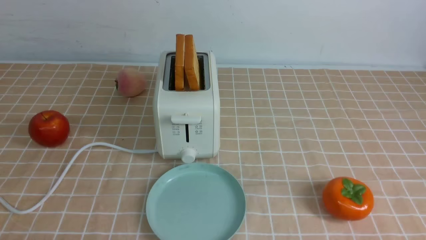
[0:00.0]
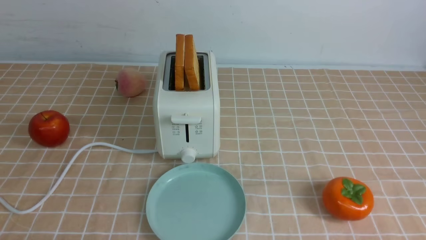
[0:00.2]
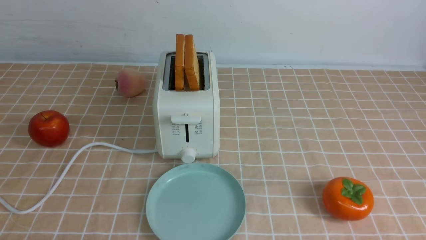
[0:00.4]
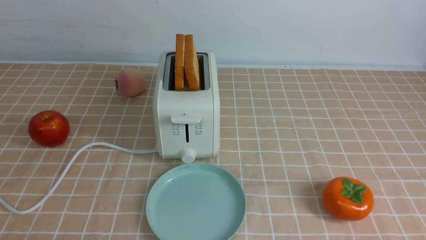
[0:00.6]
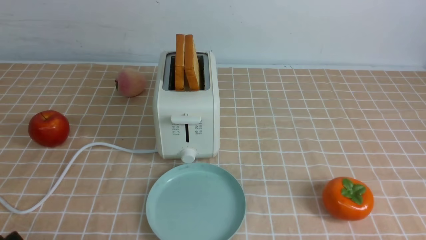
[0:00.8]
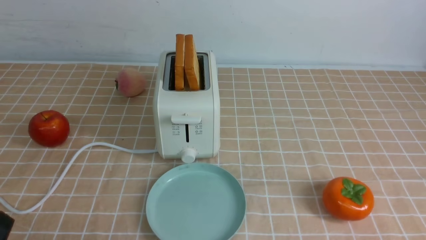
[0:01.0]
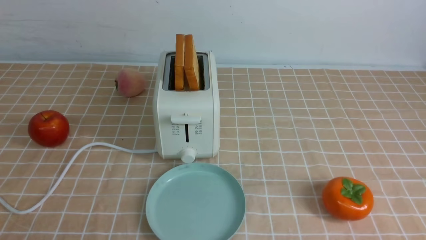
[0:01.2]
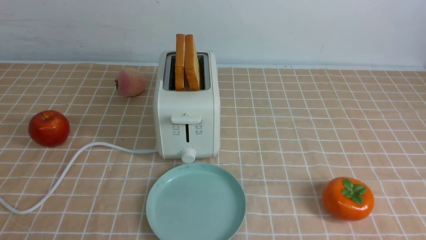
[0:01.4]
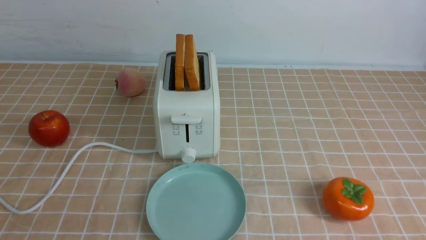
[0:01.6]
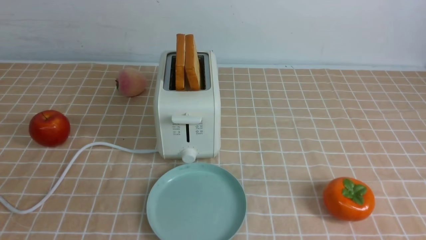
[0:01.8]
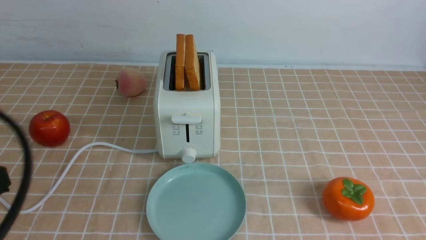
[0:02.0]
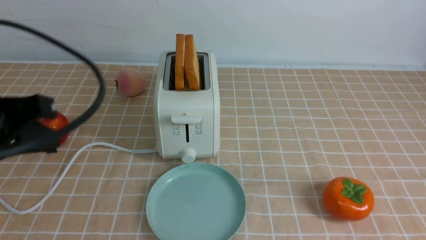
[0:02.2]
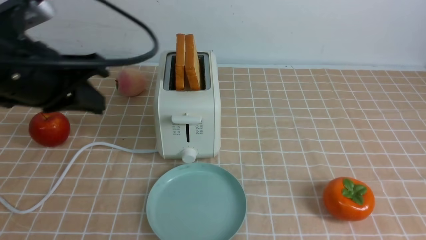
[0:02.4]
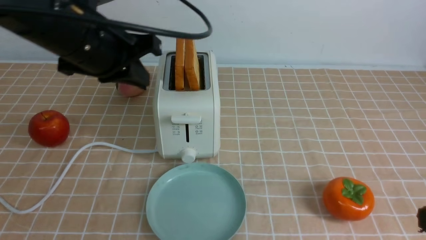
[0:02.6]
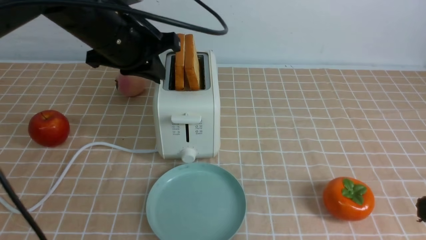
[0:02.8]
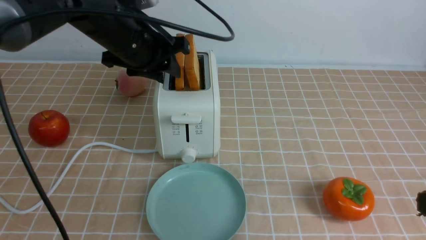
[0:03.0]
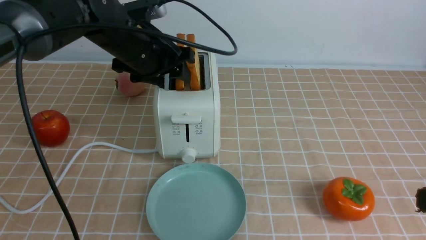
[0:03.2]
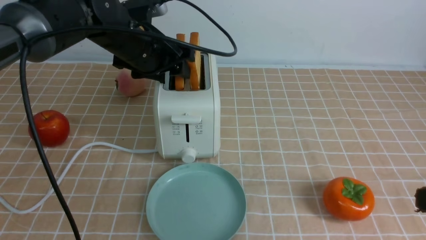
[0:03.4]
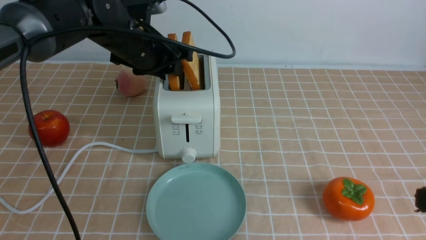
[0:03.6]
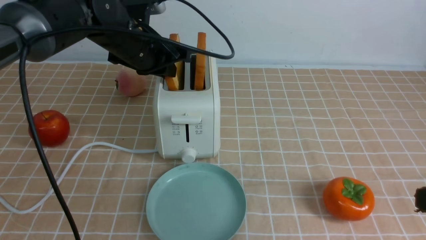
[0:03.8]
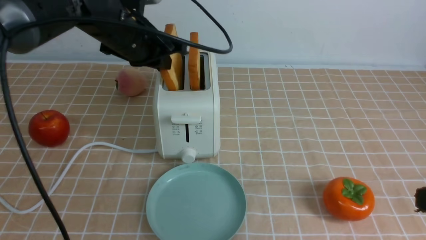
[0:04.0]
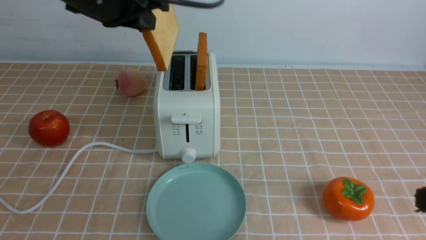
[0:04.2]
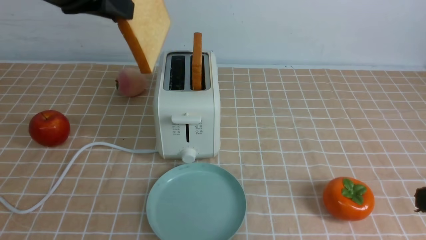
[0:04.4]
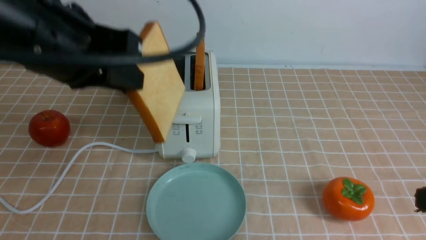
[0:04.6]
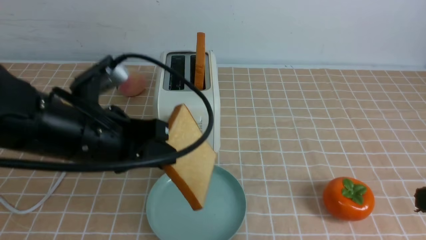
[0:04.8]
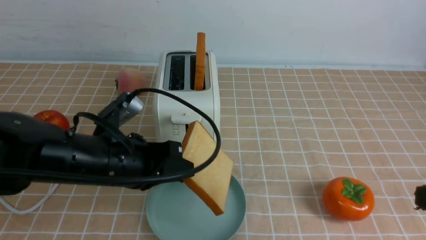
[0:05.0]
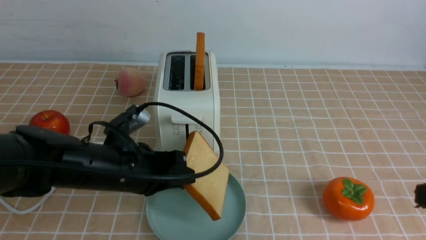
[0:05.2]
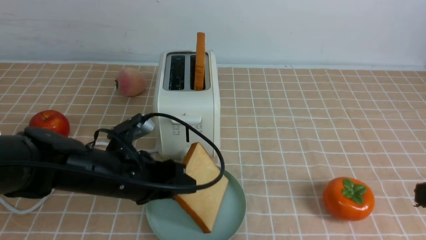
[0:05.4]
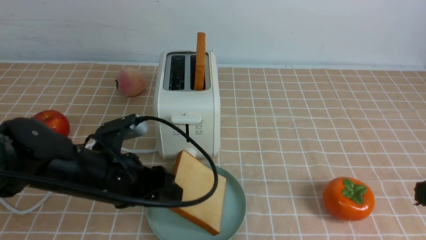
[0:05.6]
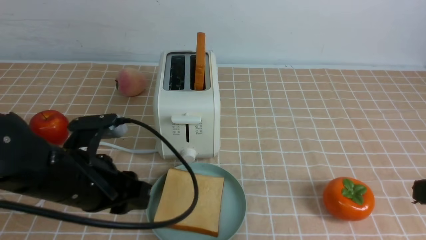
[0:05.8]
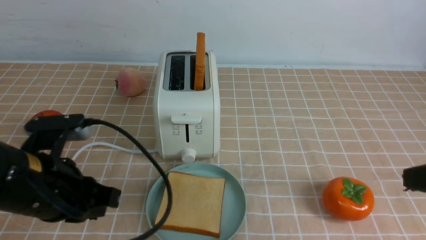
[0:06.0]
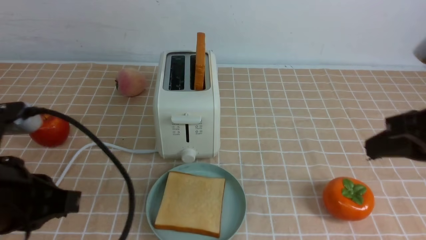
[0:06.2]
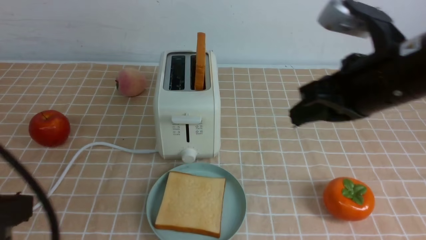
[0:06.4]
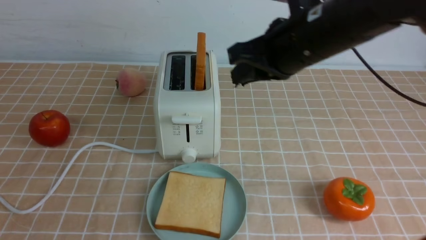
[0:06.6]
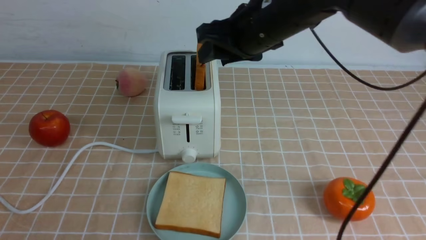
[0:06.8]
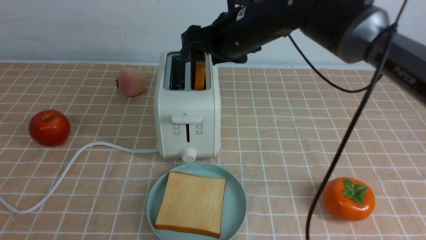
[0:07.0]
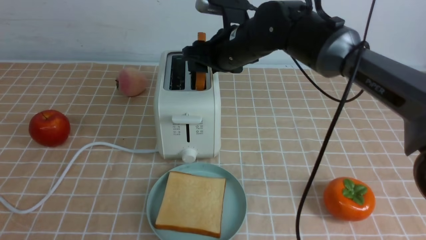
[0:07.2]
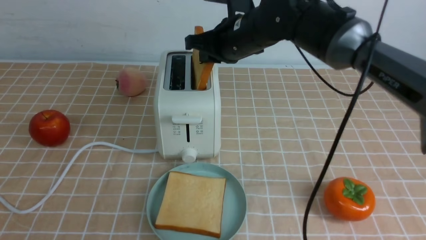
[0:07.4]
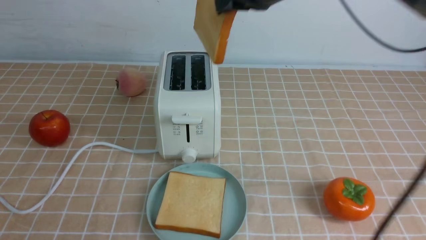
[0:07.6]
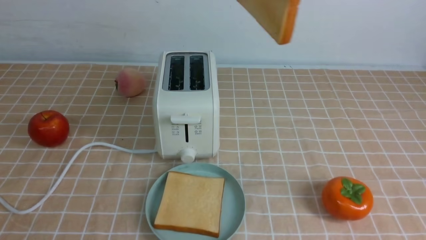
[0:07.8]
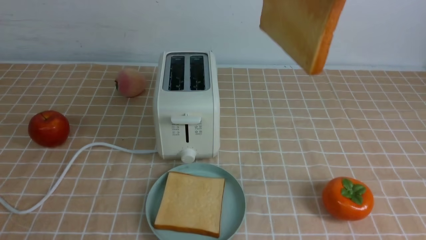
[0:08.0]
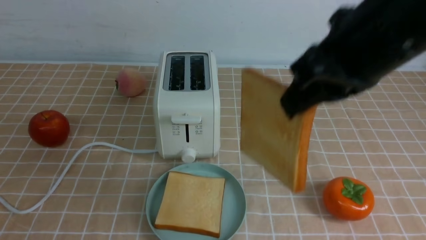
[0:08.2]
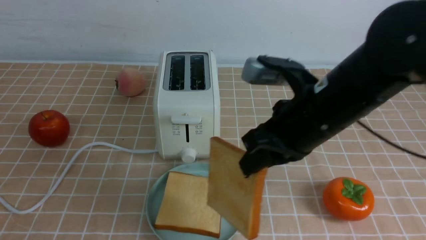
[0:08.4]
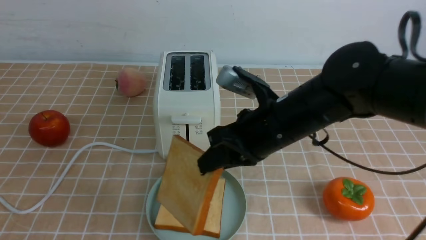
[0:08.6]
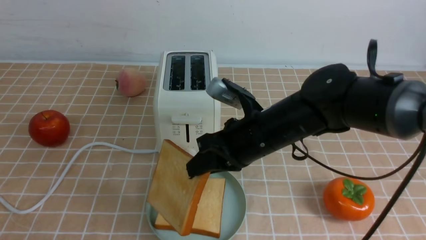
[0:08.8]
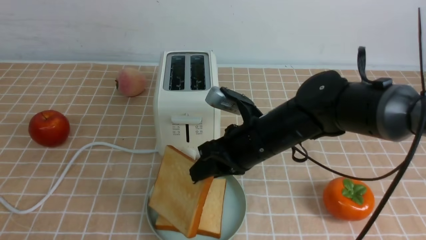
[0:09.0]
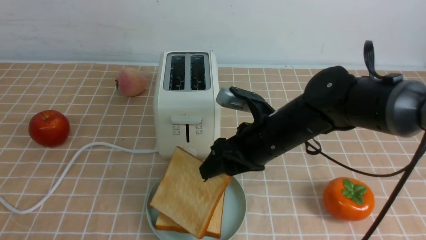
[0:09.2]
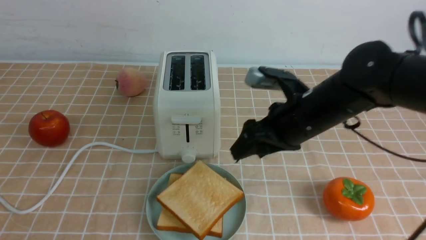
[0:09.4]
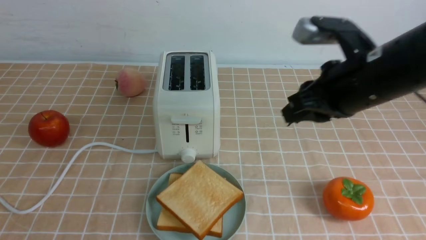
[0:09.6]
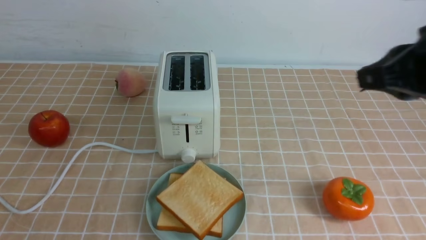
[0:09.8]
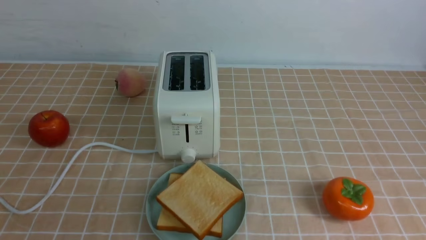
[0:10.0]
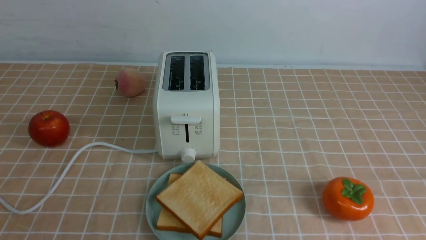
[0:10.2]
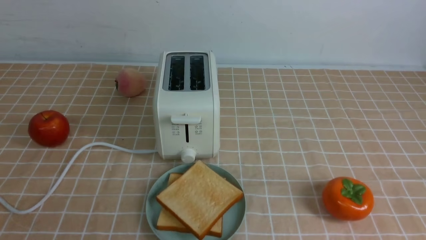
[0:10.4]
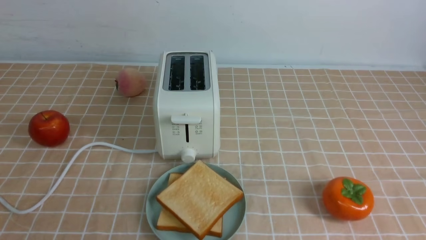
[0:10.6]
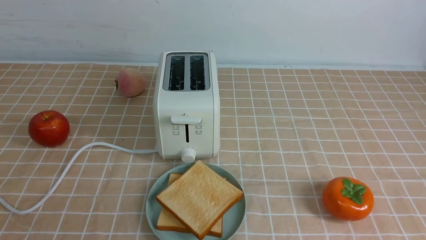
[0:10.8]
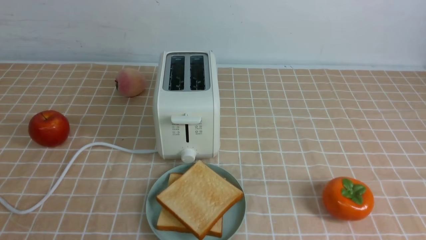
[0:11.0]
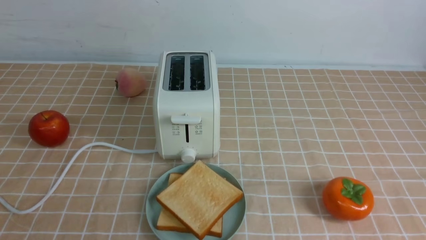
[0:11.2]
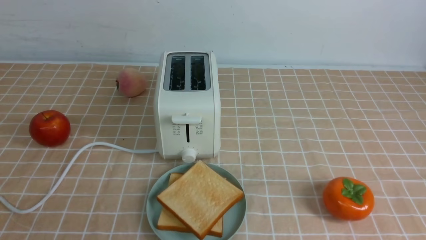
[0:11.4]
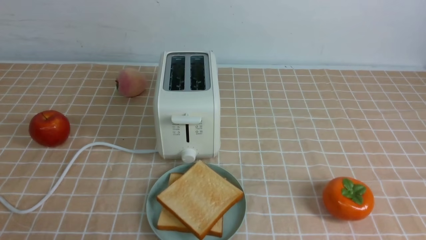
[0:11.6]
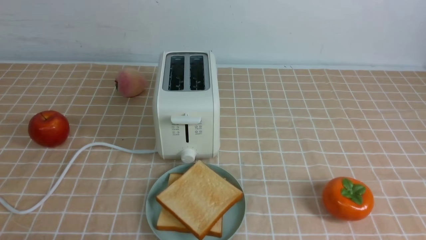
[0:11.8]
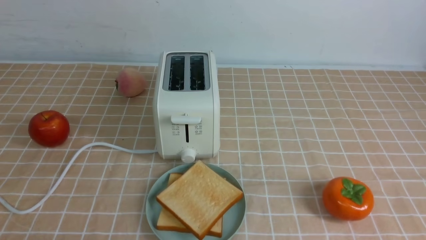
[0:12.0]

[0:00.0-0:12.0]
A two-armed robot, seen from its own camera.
Task of the whole recording: take toasted bread from bread machine on light coffee tablecloth place on plate.
Step, 0:00.0 to 0:04.0: use the left arm to take out a slice of bread.
Step, 0:04.2 to 0:05.8: use the left arm to put a slice of bread into the empty plate.
Step, 0:06.0 to 0:07.4: use the right arm to take out a slice of bread.
Step, 0:07.6 to 0:09.2: use the right arm to put a slice of bread into the plate.
0:01.6 to 0:03.0: The left gripper moves forward, roughly 35 cm, and opens up. The right gripper shifts about 15 cm upward and forward, and closes its fingers.
0:03.0 to 0:04.4: The left gripper goes roughly 15 cm backward and upward, and closes its fingers.
0:04.4 to 0:06.0: The left gripper is displaced downward and backward by some 20 cm, and opens, then closes once more.
0:06.0 to 0:07.6: The right gripper travels forward, to the left and upward by about 30 cm, and opens, then closes once more. The left gripper travels backward by some 20 cm.
0:07.6 to 0:09.0: The right gripper shifts approximately 20 cm downward, and opens.
0:09.0 to 0:10.4: The right gripper goes some 35 cm backward and to the right, and closes its fingers.
0:10.4 to 0:12.0: The left gripper is displaced downward by roughly 15 cm.

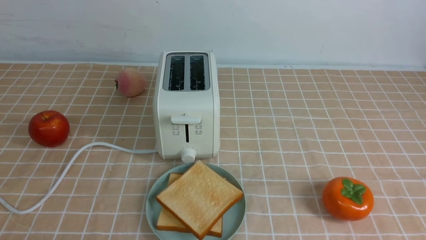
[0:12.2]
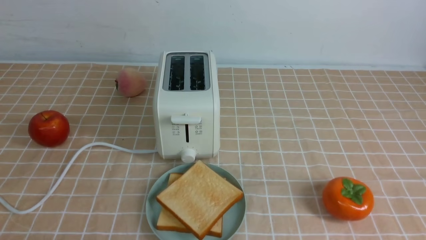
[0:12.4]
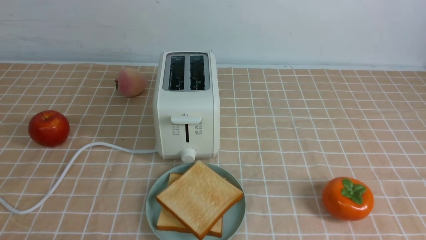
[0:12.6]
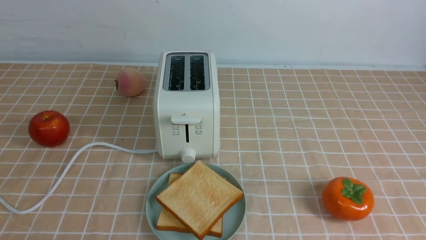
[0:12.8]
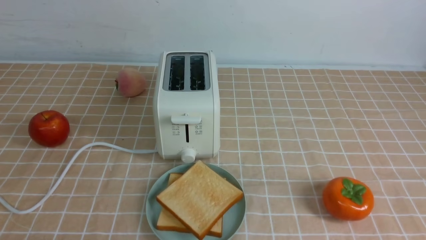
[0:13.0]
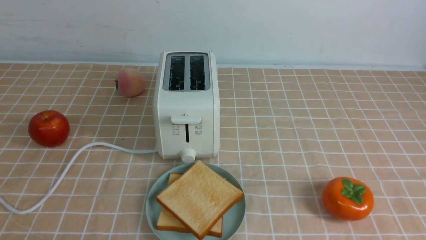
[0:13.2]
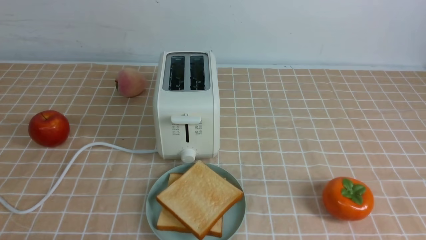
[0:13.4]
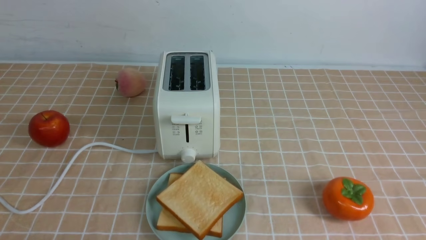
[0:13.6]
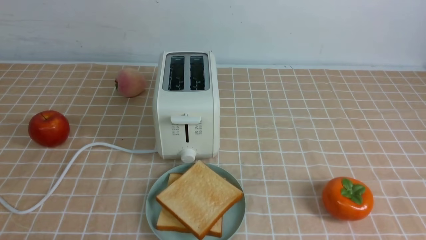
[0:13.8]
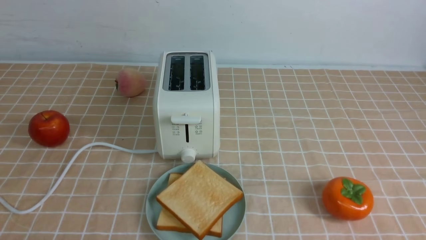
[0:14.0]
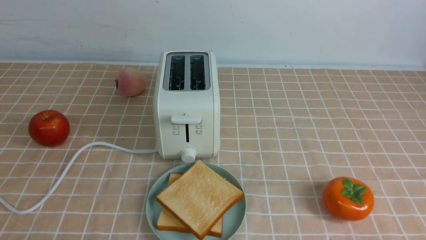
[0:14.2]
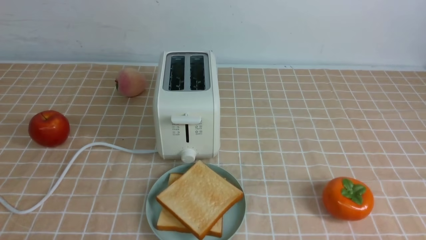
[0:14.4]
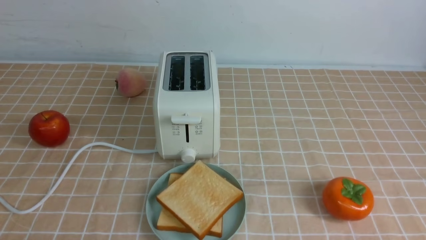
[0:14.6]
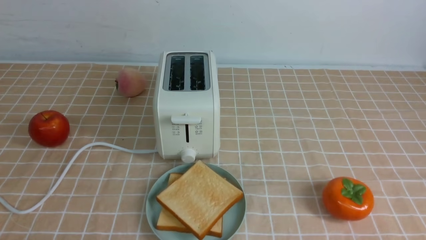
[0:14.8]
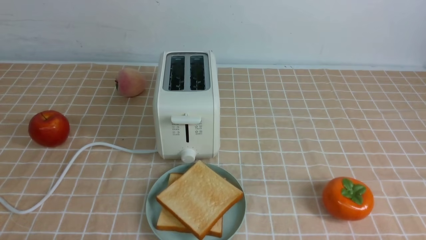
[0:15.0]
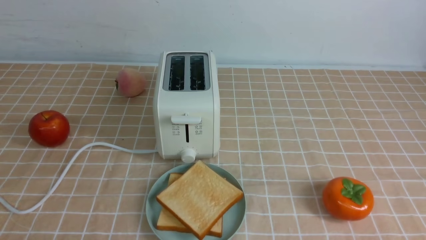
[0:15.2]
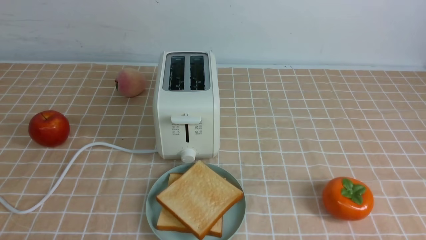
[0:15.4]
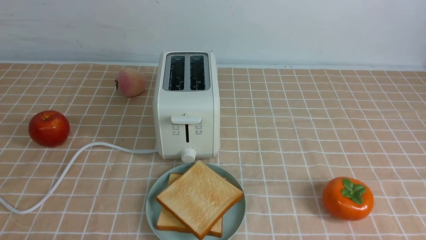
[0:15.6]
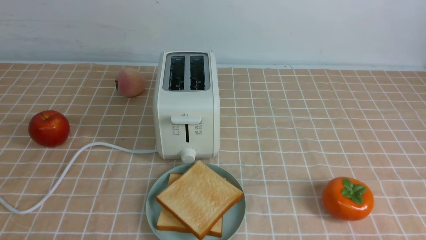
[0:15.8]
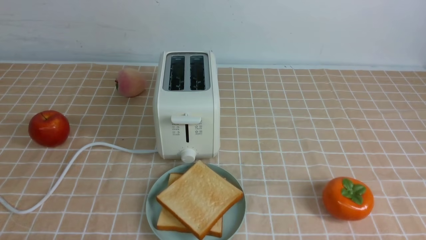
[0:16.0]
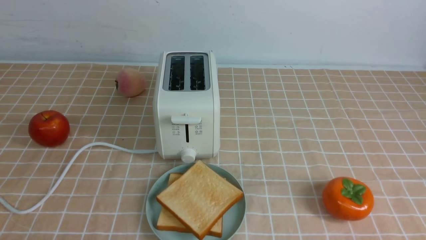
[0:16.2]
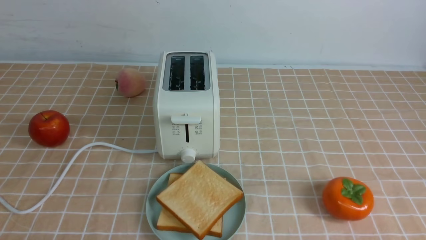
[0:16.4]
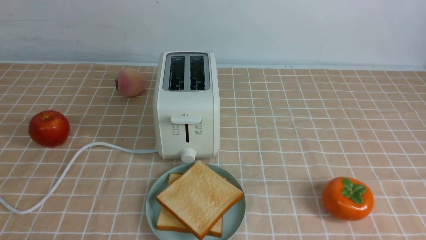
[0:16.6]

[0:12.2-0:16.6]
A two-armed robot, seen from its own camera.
Task of the whole recording: take toasted bread from bread machine on light coffee tablecloth place on plate.
0:15.2 to 0:16.6: Both grippers stay about where they are.
